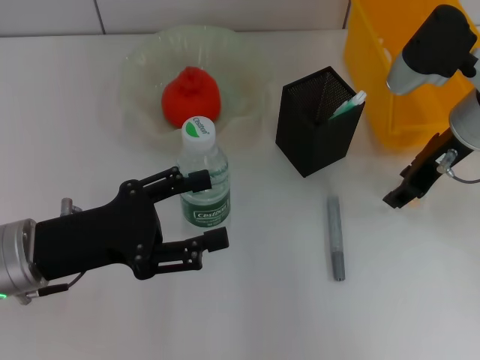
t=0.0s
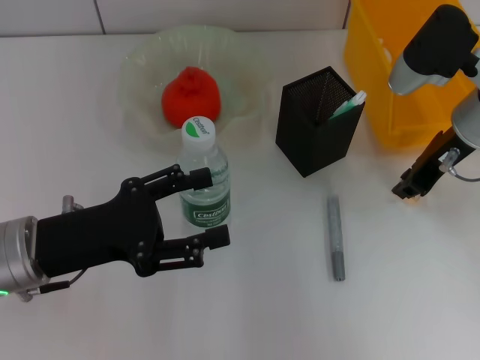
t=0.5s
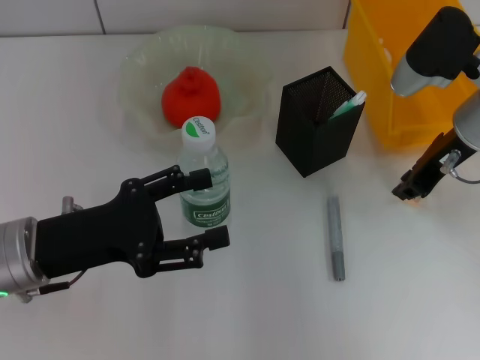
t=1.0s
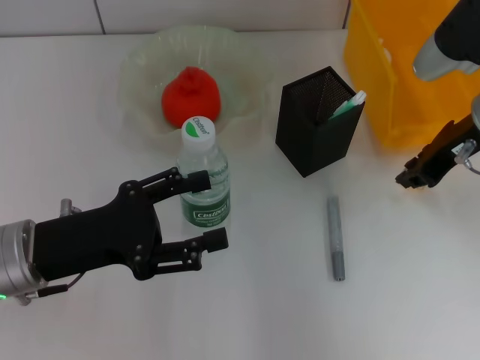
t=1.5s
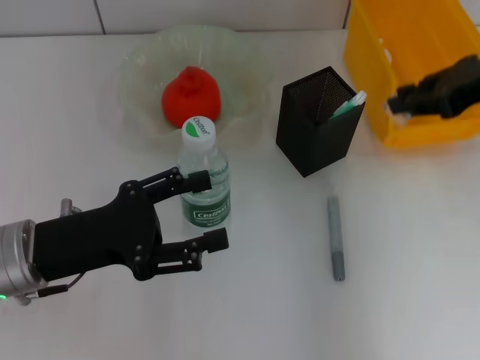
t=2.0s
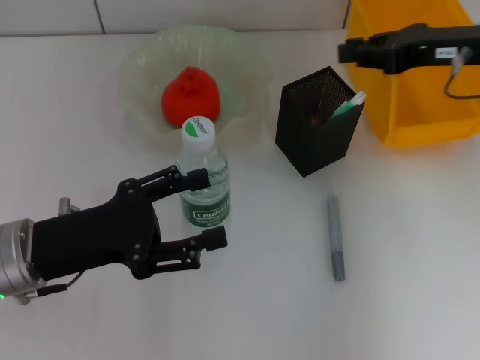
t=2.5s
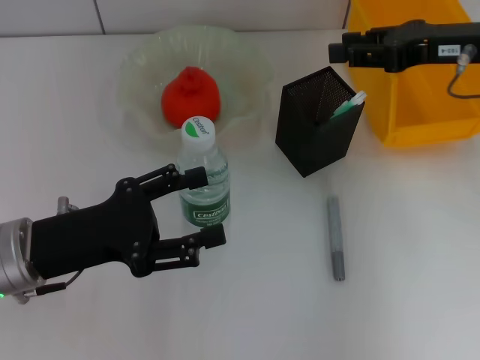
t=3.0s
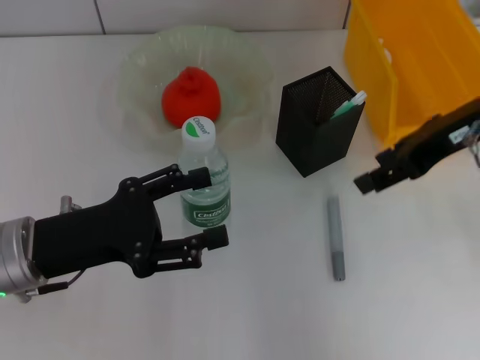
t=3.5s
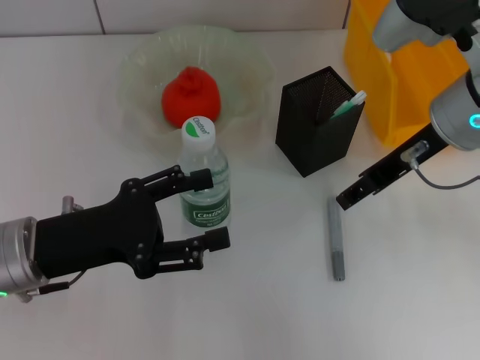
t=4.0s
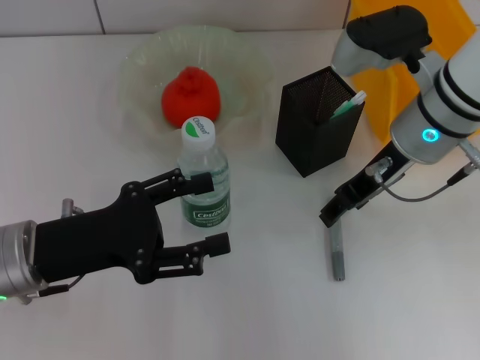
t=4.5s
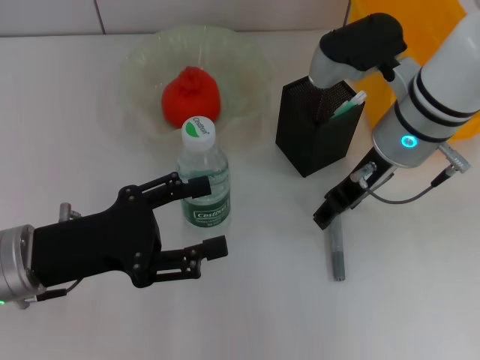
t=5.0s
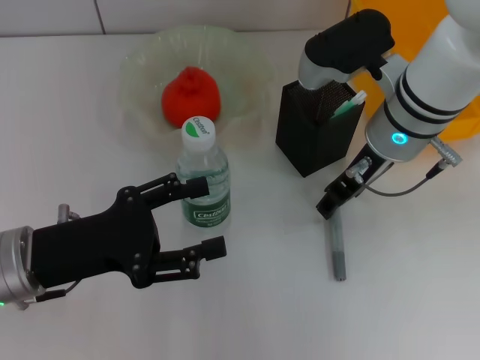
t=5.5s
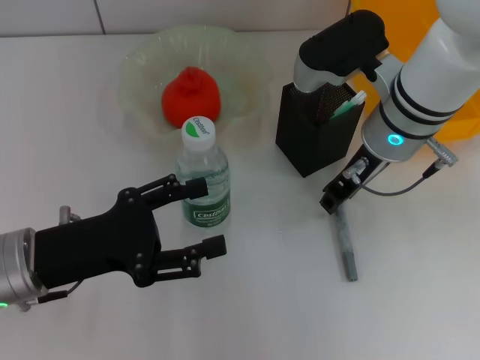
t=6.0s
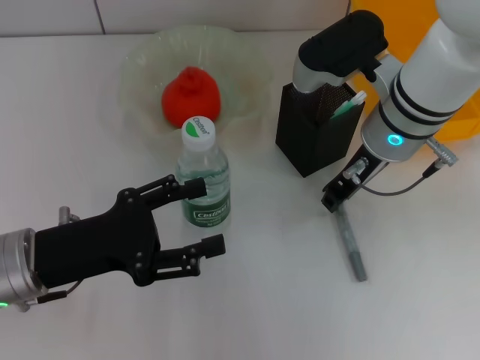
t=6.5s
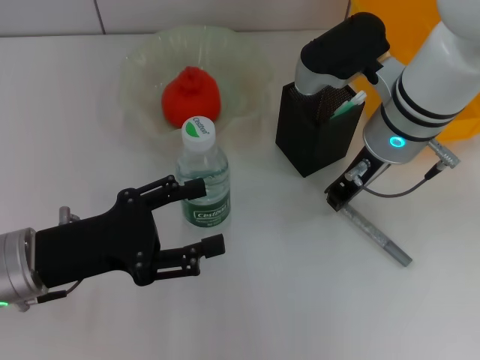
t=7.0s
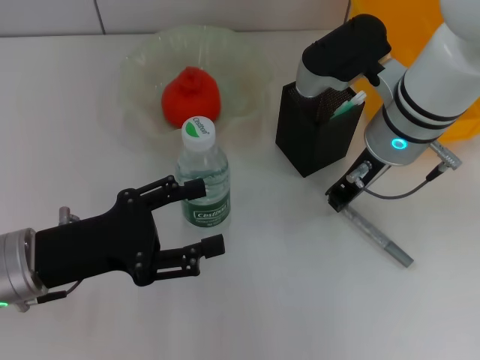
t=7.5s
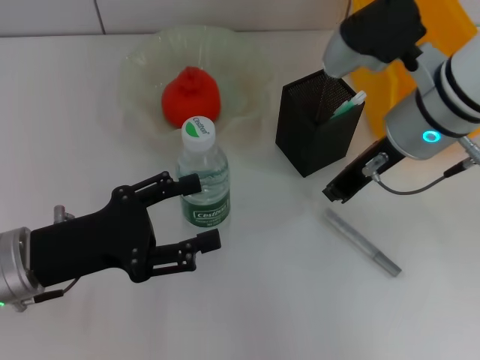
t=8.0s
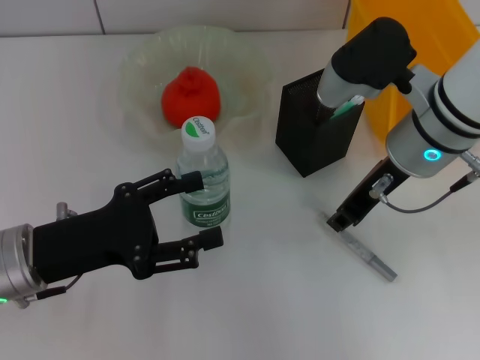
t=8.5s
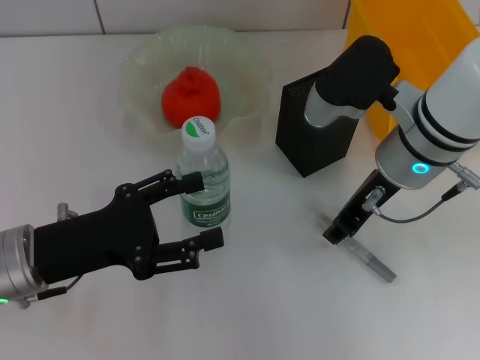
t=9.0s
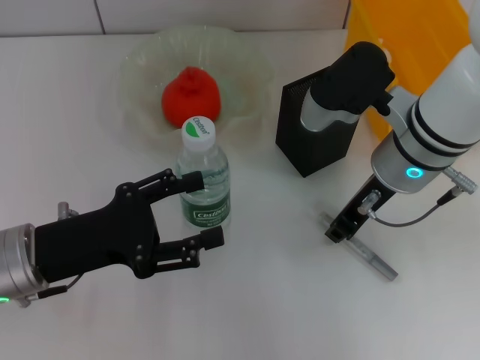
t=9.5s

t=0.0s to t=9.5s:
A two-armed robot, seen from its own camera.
Step, t=1.5s to t=2.5s: Put the eraser into the pen holder with the right hand.
t=0.0s to t=2.0s: The right gripper is displaced upward and to the right by approximately 10 cm, and closes.
t=2.0s to t=4.0s: The right gripper moves to the left, roughly 10 cm, and opens its fingers.
t=4.0s to t=5.5s: The right gripper changes place by some 5 cm.
t=5.5s to t=7.5s: The right gripper closes its fingers.
t=7.5s to t=9.5s: The grippers stay close to where they were, moving slightly.

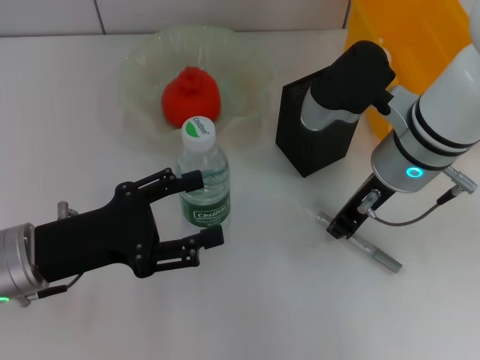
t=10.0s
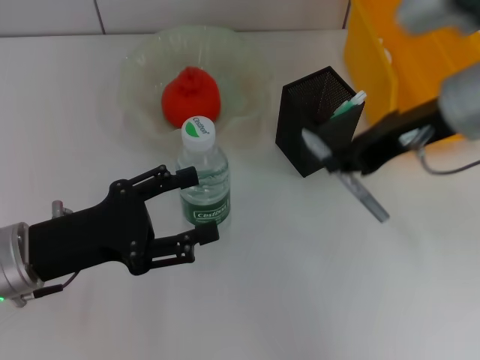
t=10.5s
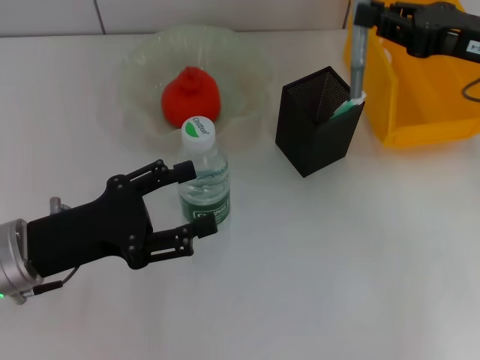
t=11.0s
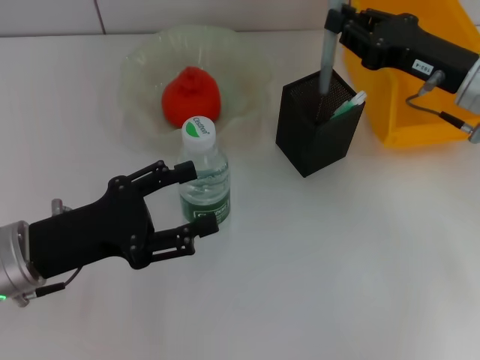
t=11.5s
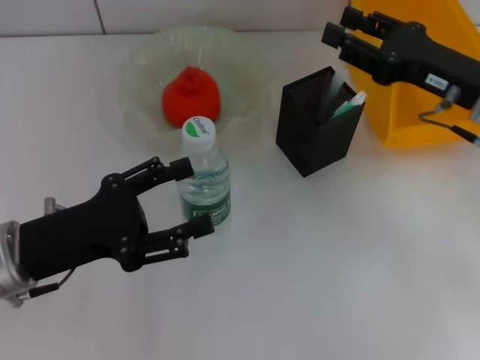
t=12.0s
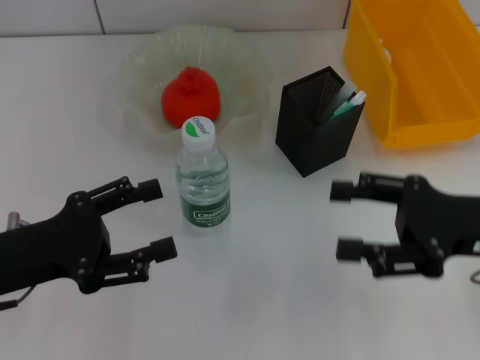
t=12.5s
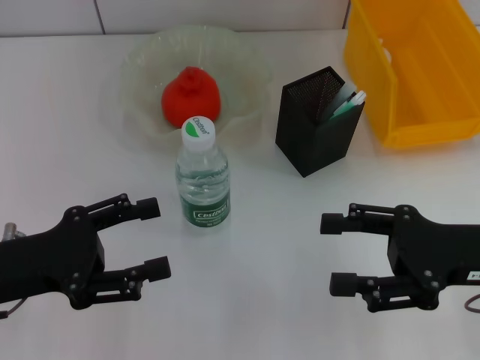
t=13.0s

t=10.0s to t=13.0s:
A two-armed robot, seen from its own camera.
Step, t=10.5s to t=11.5s: Place the gray glue into the pen holder with the right hand.
t=10.0s to t=11.5s: The right gripper travels to the right by about 10 cm.
t=11.5s to t=13.0s: The right gripper shifts roughly 15 cm backward, and opens.

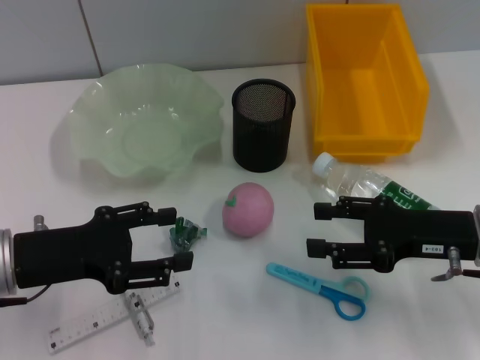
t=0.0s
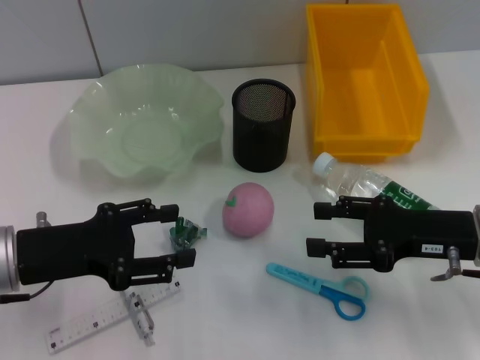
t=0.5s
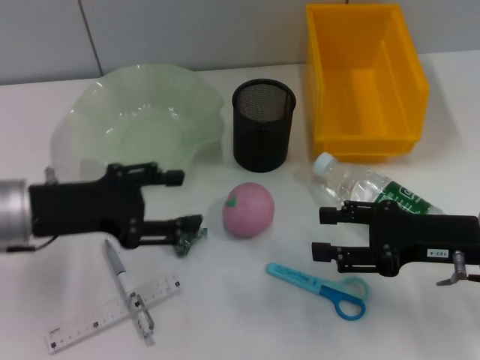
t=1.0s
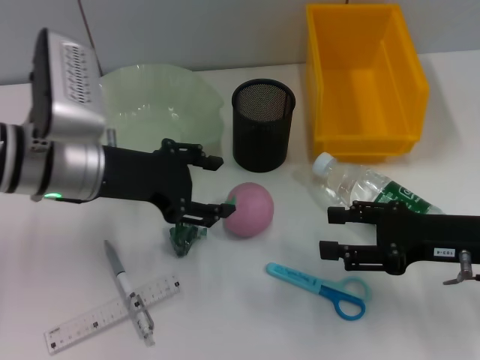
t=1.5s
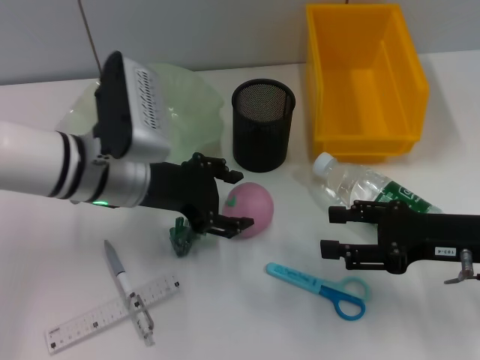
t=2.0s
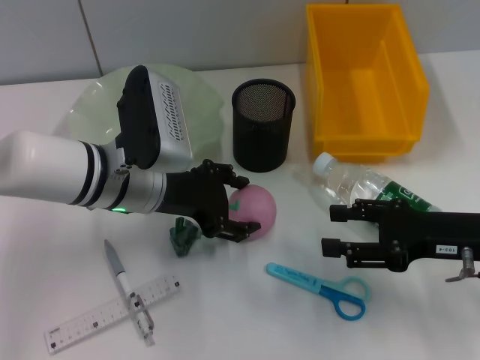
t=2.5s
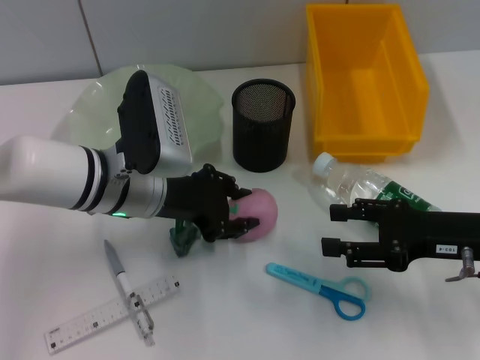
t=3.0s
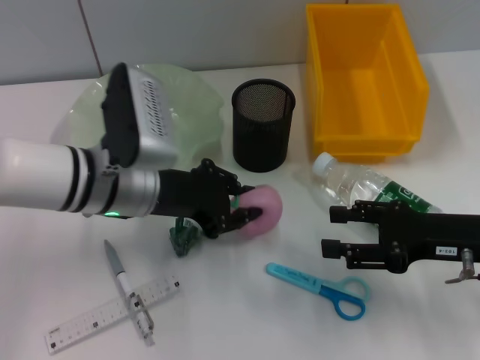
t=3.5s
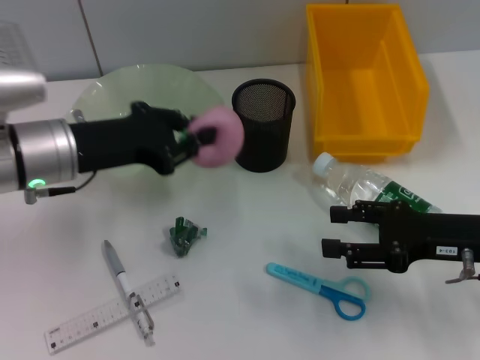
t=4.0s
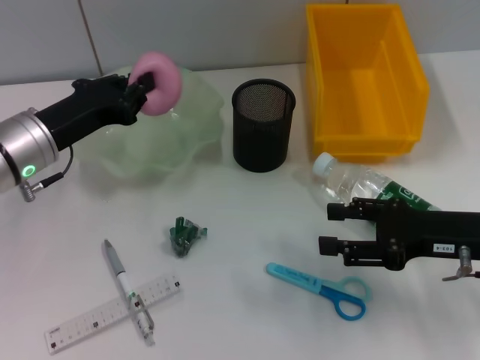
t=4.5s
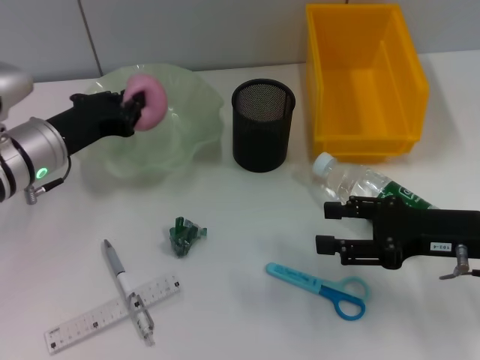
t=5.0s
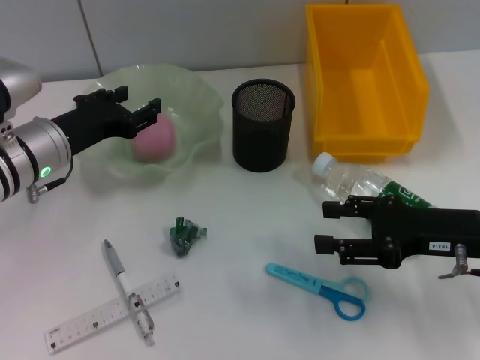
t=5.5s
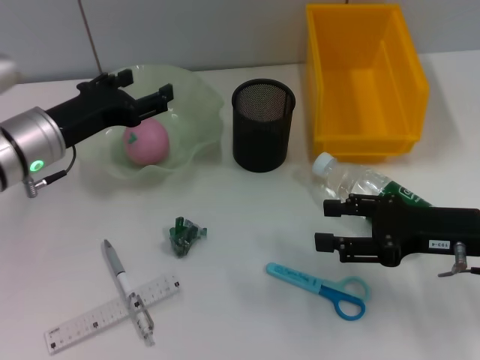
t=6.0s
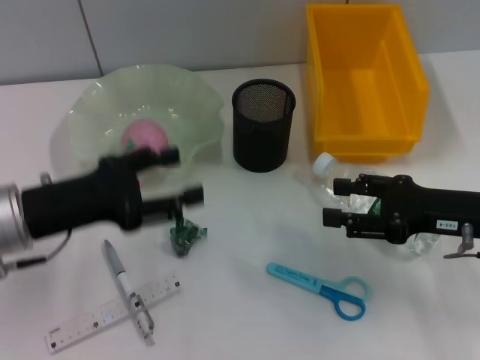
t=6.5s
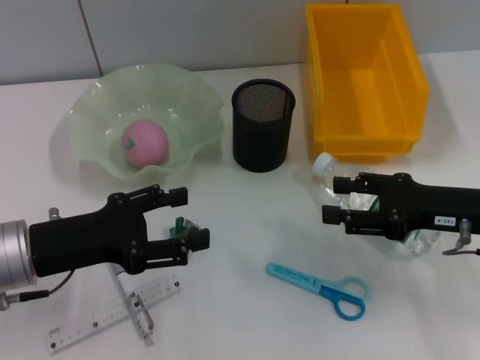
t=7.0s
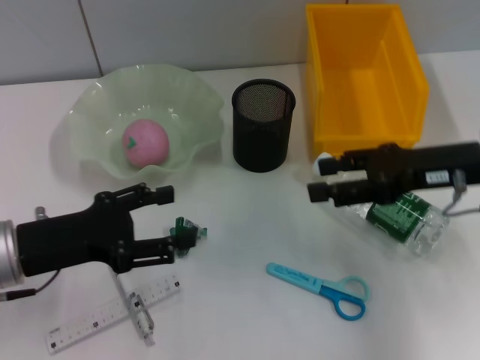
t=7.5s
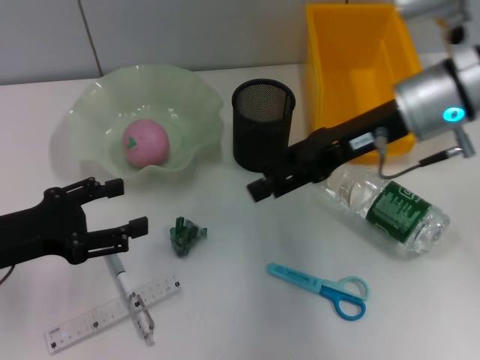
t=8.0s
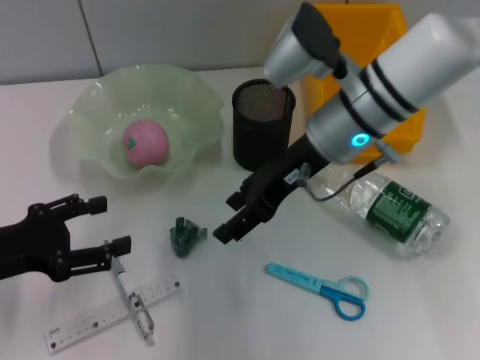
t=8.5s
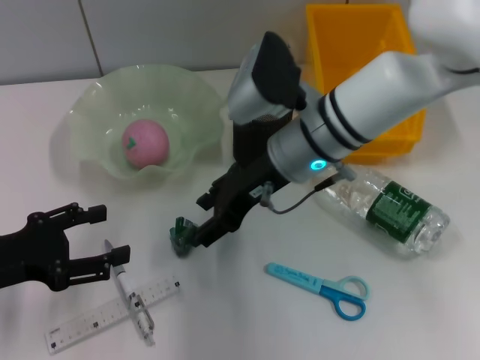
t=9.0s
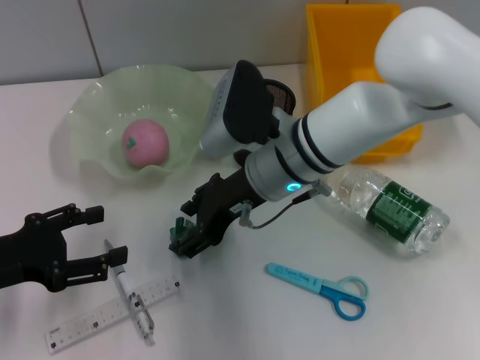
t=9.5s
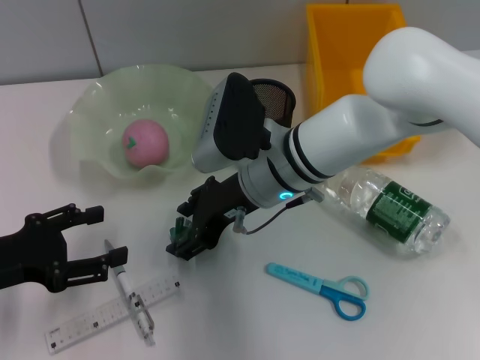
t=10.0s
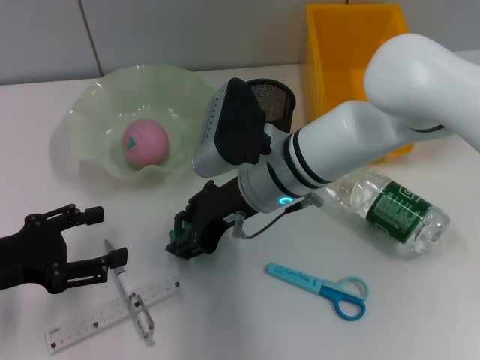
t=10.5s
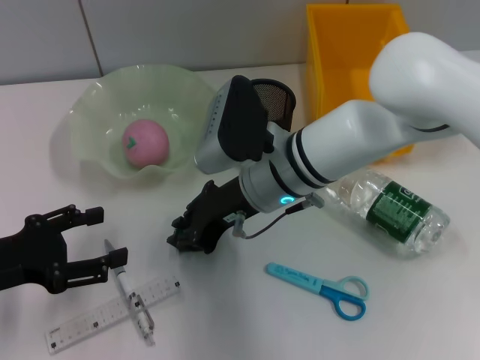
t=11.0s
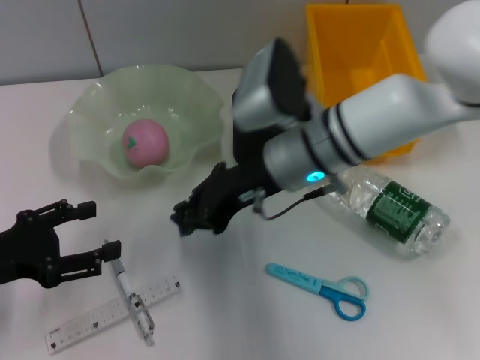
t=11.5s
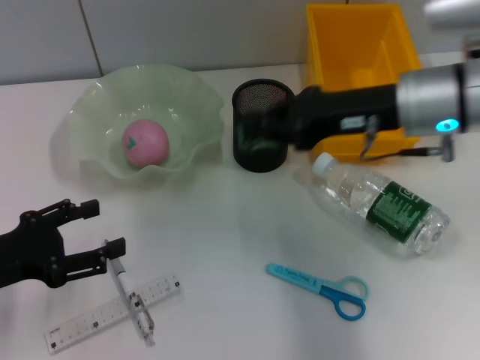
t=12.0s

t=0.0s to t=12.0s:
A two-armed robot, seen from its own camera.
Step, t=0.0s to t=3.0s: Grab the peach with the left hand.
Step, t=3.5s to t=5.0s: Place the peach into the fruit bowl with the left hand.
Step, t=6.0s to t=10.5s: Grab the plastic with the right hand.
t=0.0s to t=2.0s: The left gripper moves to the right and forward, about 15 cm.
t=2.0s to t=4.0s: The left gripper is displaced to the left by approximately 5 cm, and closes.
t=4.0s to t=6.0s: The left gripper opens up.
t=6.0s to t=8.0s: The left gripper goes approximately 10 cm backward and to the left. The right gripper goes approximately 15 cm forward, upward and to the left.
t=8.0s to t=10.0s: The right gripper moves to the left and downward, about 15 cm.
t=10.0s to t=12.0s: The right gripper goes roughly 15 cm to the right and upward, and closes its fingers.

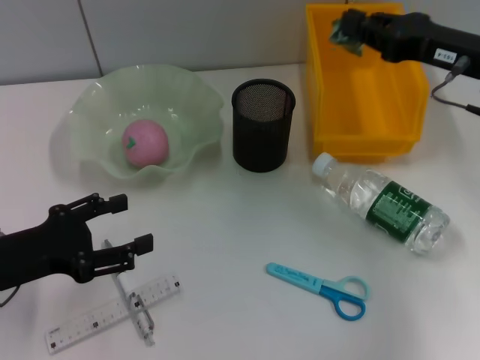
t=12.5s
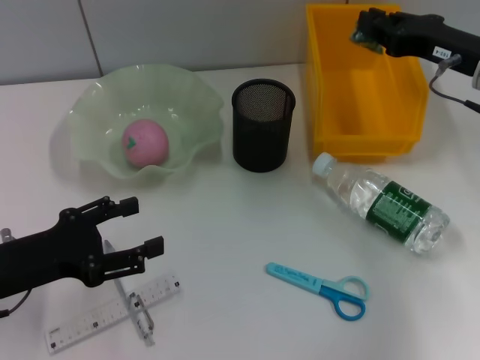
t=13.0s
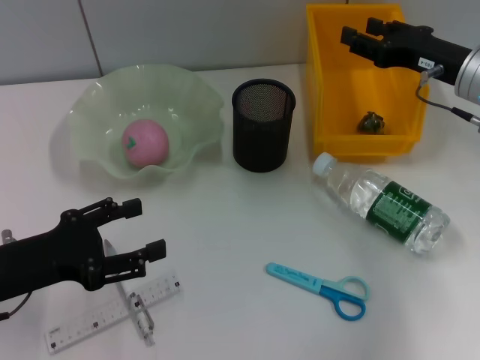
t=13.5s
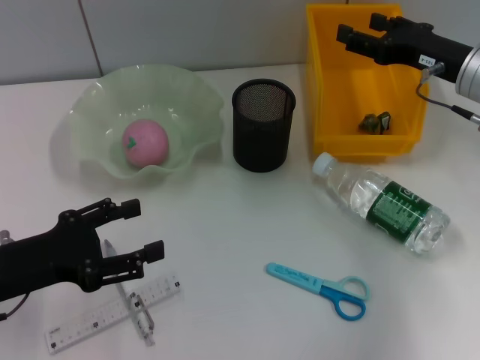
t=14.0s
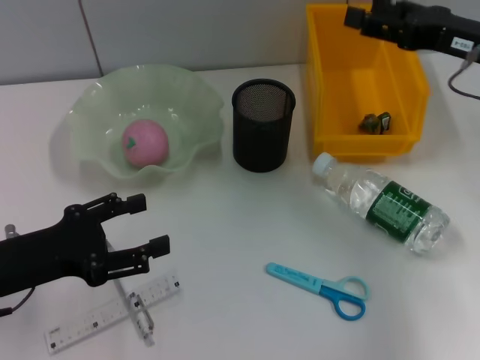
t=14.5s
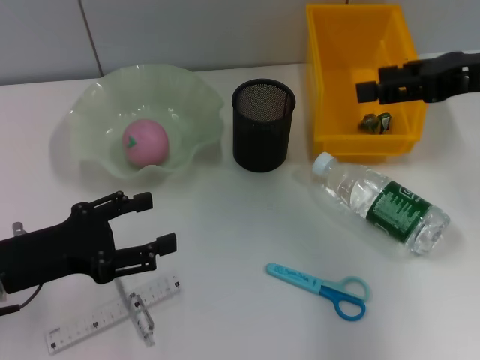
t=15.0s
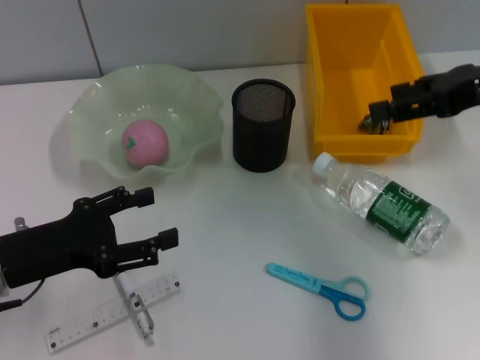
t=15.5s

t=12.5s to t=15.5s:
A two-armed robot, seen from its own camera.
t=12.5s to t=14.0s: The right gripper opens up.
t=14.0s to t=15.5s: The right gripper travels upward and backward by about 10 cm.
